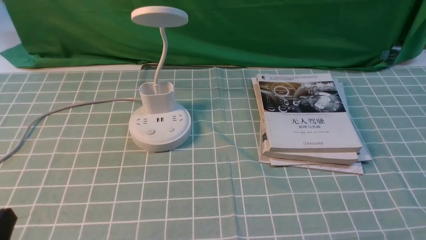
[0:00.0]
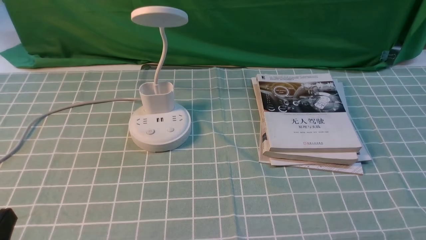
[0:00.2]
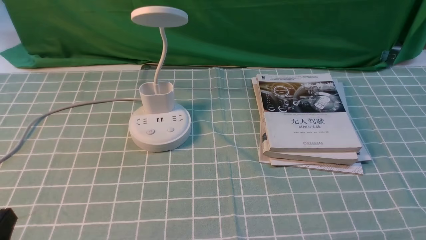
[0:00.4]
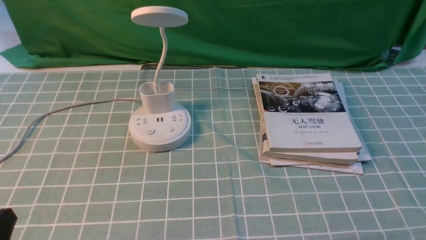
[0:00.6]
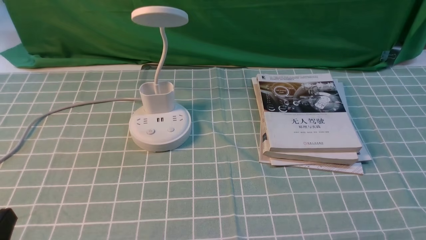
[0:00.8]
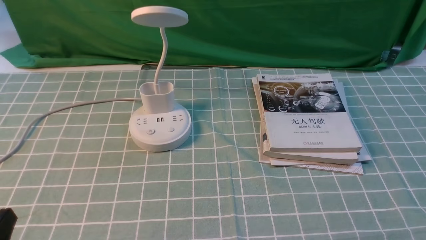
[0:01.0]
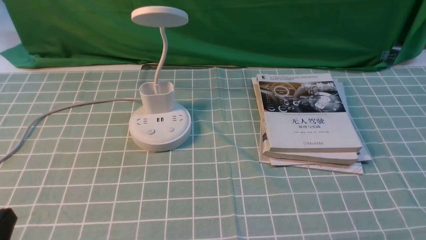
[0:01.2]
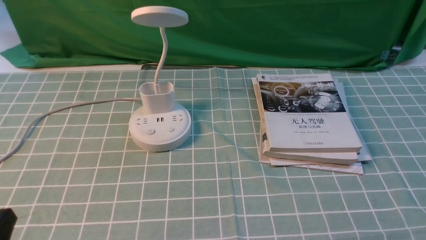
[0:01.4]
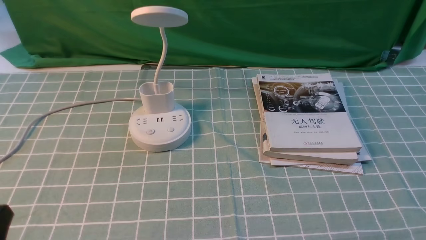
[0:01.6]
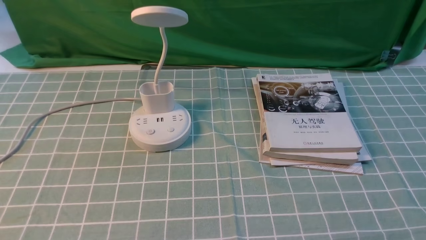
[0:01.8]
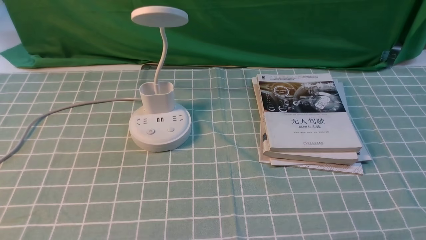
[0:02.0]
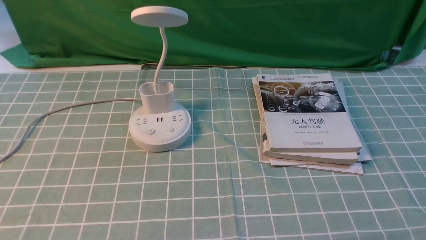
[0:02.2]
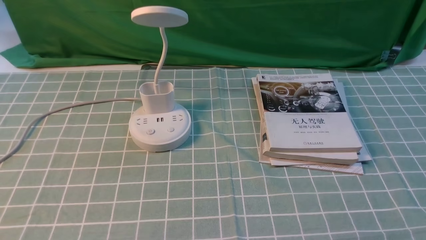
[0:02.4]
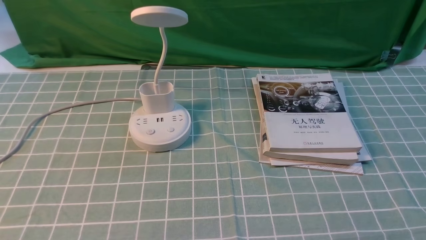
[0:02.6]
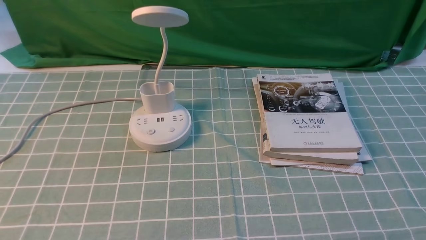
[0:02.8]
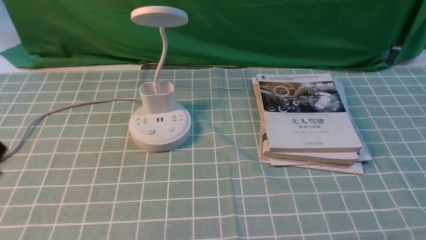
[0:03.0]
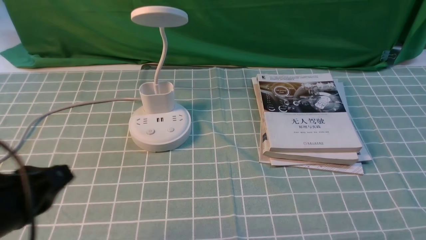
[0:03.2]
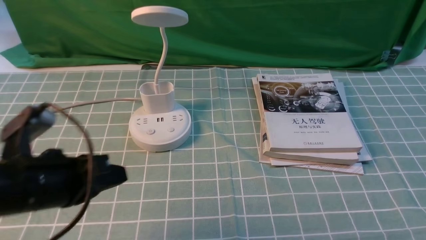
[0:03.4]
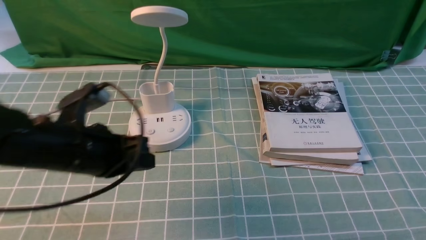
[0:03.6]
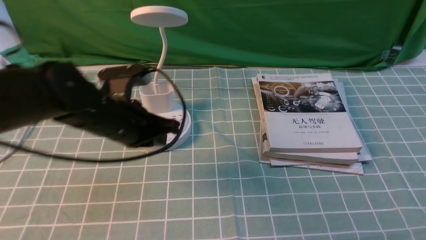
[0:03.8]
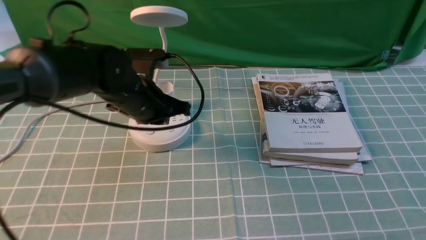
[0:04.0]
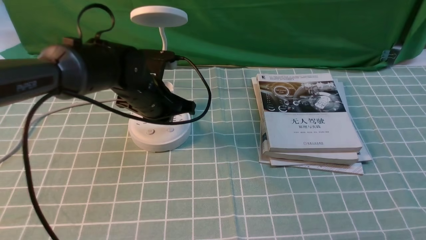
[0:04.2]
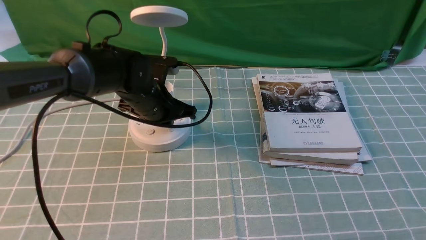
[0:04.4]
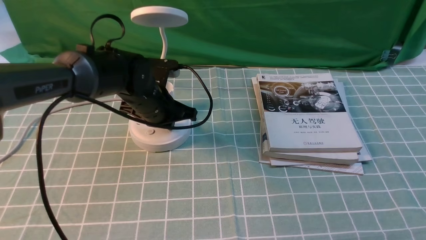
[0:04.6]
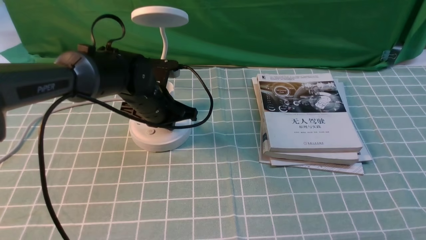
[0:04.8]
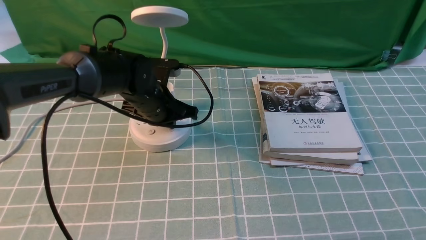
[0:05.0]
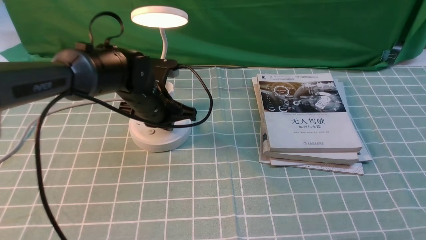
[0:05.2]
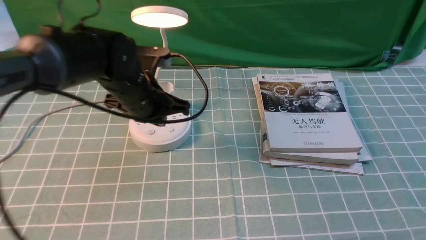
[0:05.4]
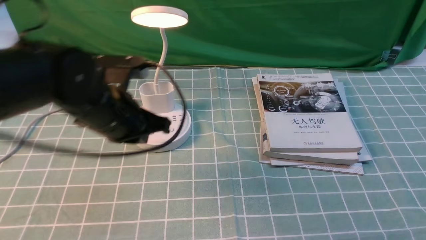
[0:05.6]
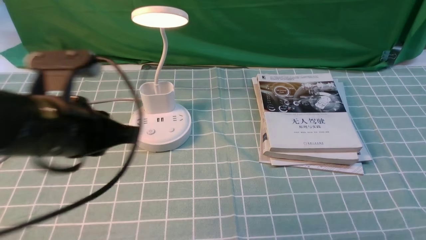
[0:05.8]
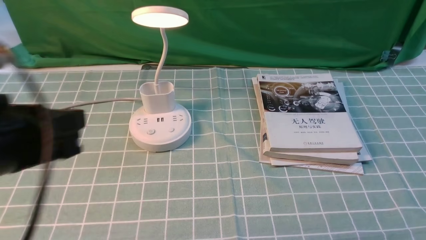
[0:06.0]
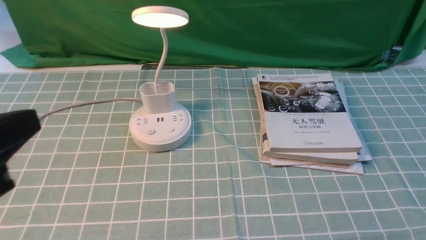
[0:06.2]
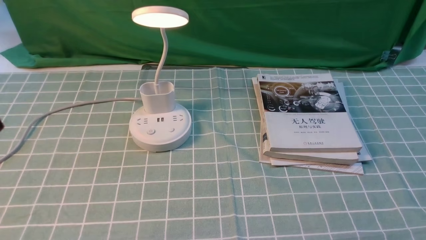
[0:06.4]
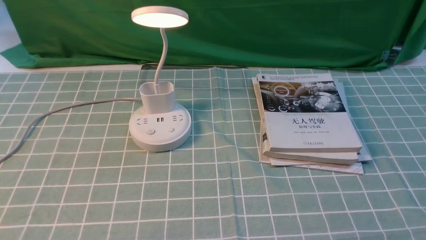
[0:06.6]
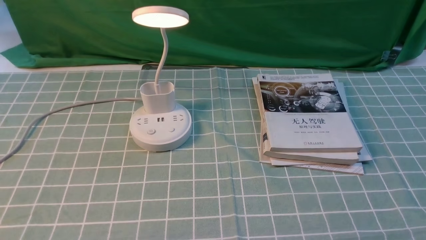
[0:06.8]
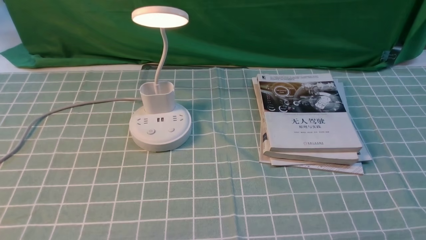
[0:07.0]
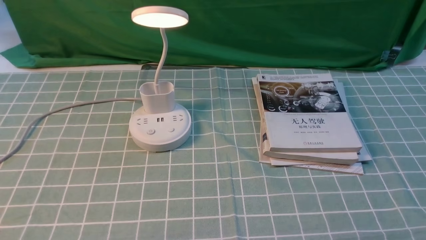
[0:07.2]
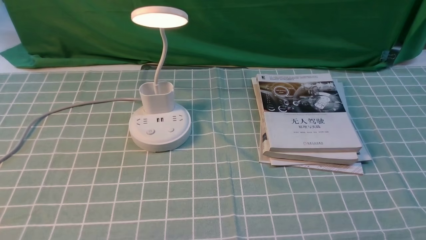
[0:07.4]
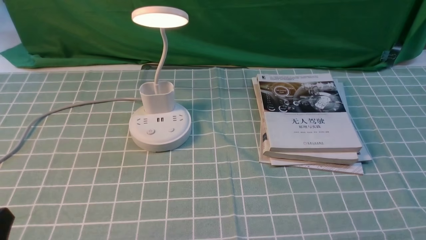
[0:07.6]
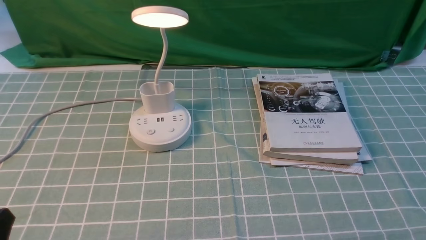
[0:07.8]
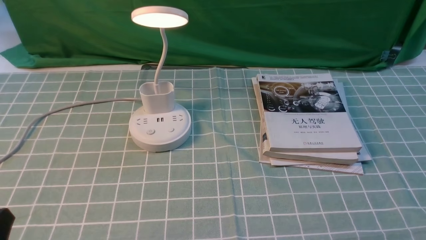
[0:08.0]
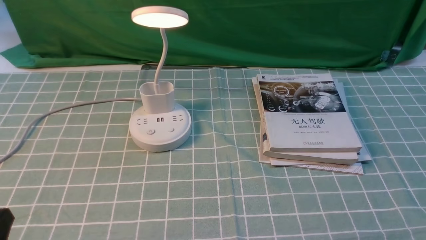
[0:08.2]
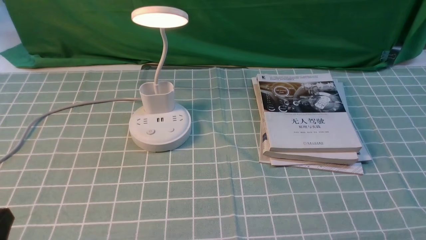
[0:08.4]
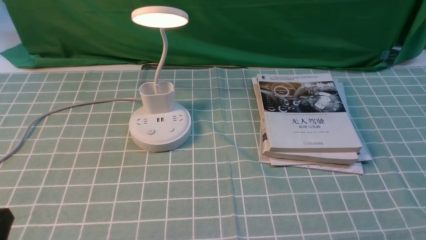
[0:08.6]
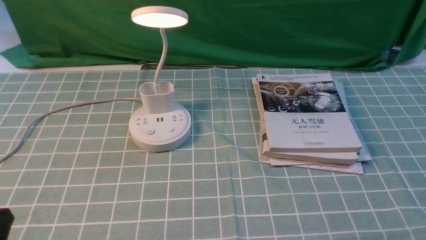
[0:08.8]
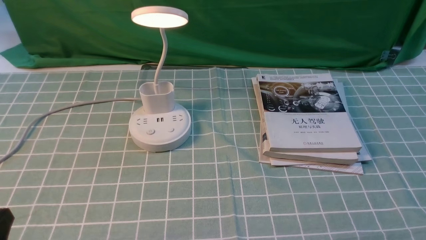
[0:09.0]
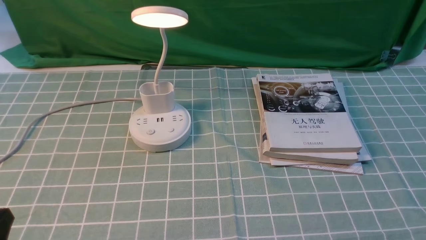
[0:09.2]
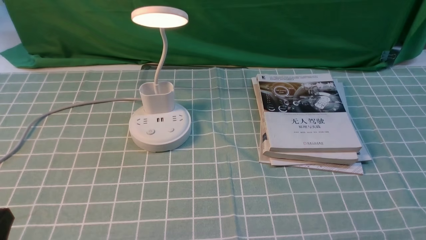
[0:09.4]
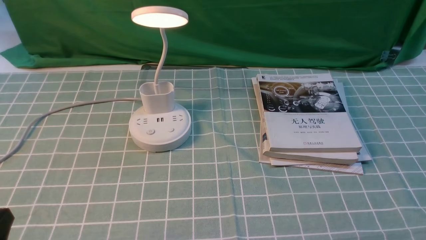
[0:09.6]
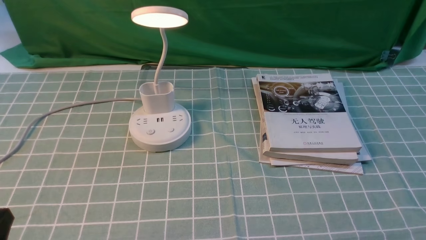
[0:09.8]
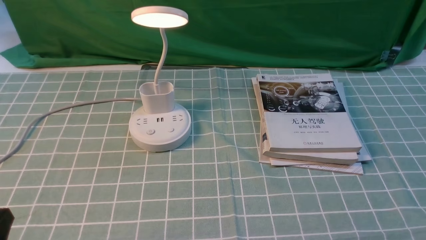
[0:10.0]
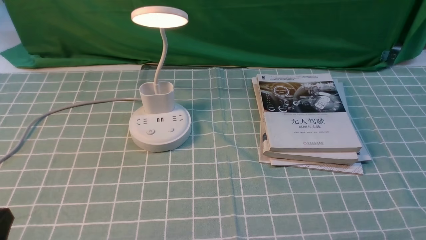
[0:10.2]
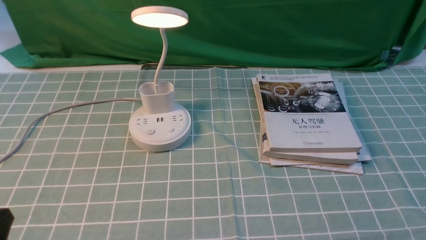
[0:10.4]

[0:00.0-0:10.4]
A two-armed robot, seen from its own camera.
Step, 0:00.0 to 0:05.4: use the left arm to press the button switch on the lamp holder.
0:00.0 to 0:01.4: The two grippers keep their place.
0:03.0 to 0:04.4: The left gripper shifts approximately 35 cm forward and to the right.
0:04.4 to 0:06.0: The left gripper heads backward and upward, covering some 30 cm.
0:06.0 to 0:07.4: The left gripper moves downward, backward and to the left, roughly 15 cm.
0:09.0 to 0:10.4: Both grippers stay about where they are.
